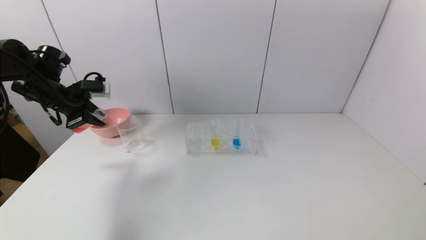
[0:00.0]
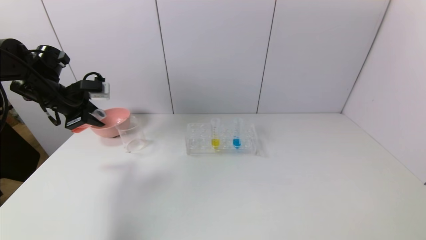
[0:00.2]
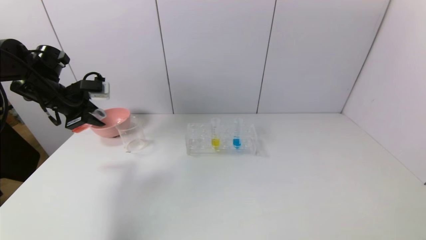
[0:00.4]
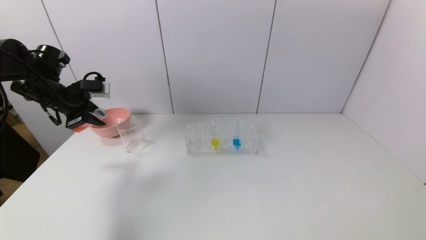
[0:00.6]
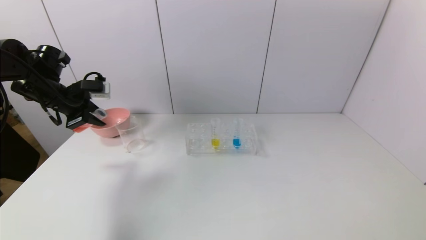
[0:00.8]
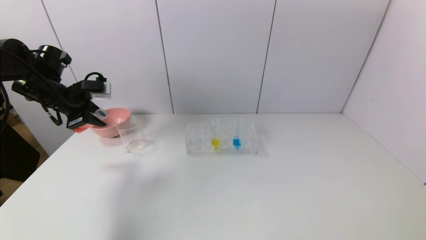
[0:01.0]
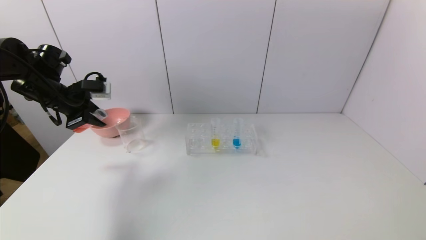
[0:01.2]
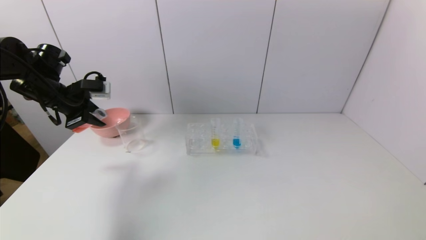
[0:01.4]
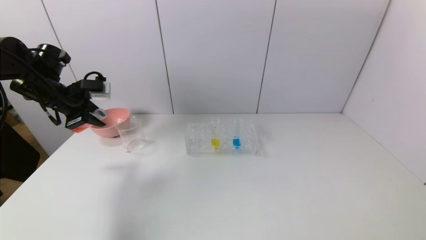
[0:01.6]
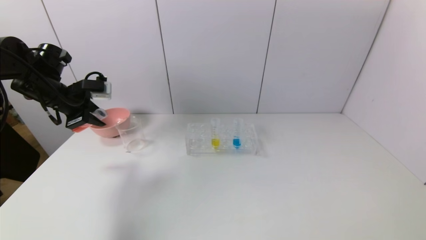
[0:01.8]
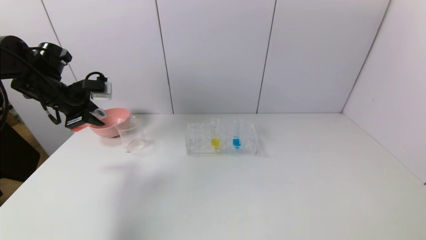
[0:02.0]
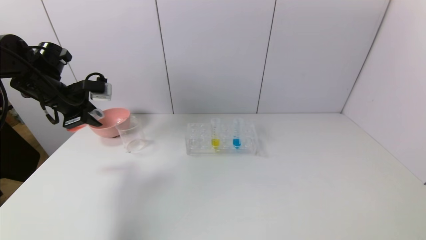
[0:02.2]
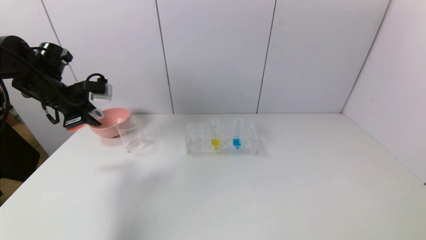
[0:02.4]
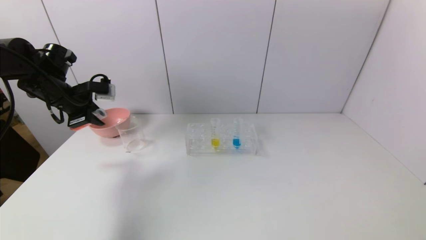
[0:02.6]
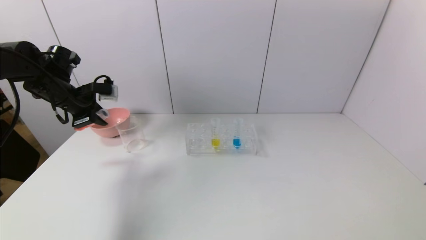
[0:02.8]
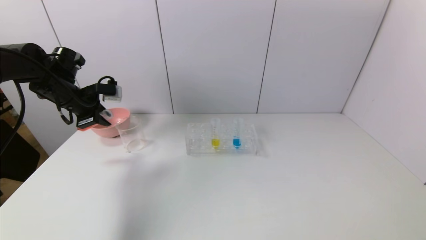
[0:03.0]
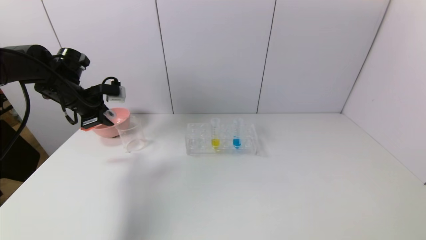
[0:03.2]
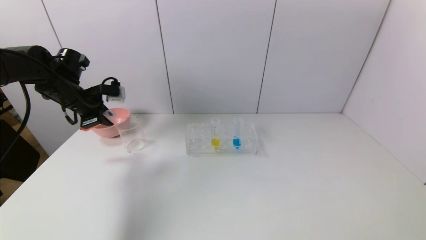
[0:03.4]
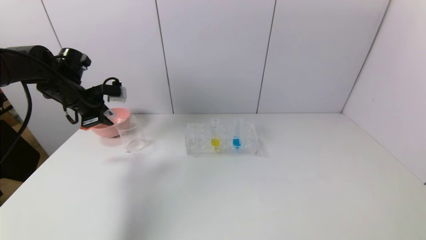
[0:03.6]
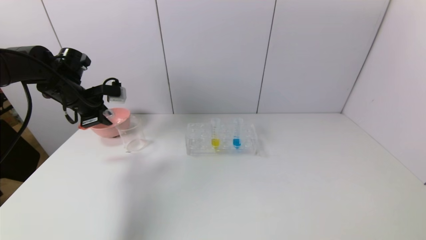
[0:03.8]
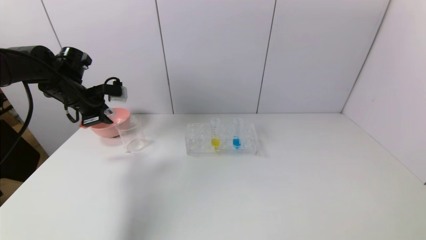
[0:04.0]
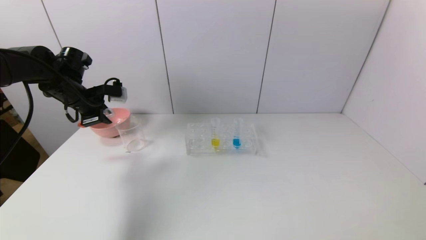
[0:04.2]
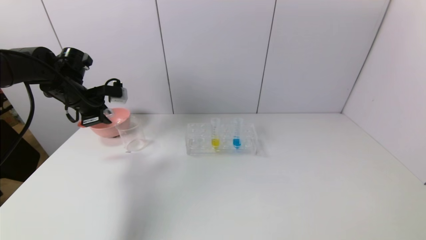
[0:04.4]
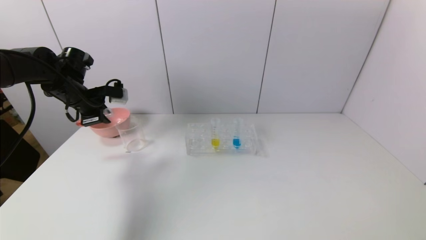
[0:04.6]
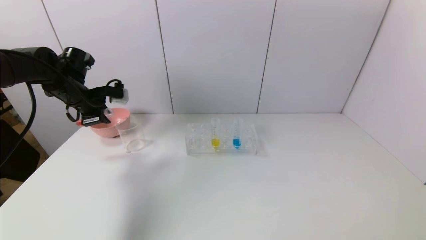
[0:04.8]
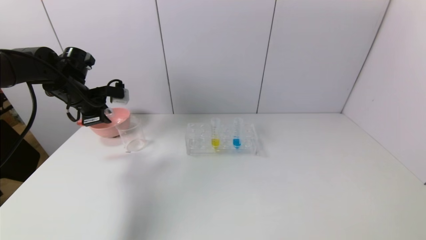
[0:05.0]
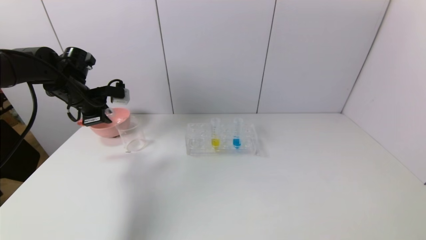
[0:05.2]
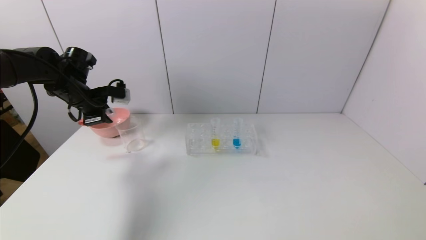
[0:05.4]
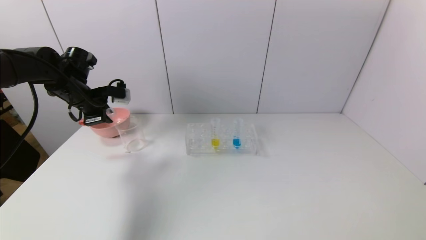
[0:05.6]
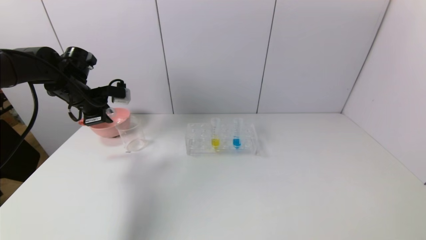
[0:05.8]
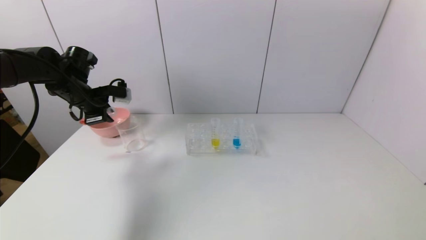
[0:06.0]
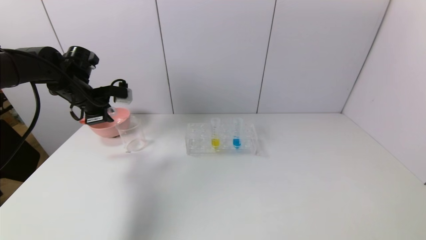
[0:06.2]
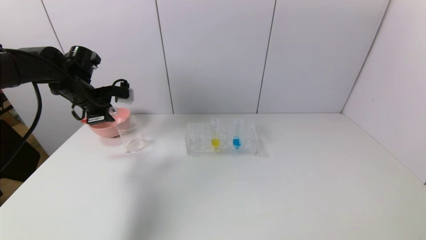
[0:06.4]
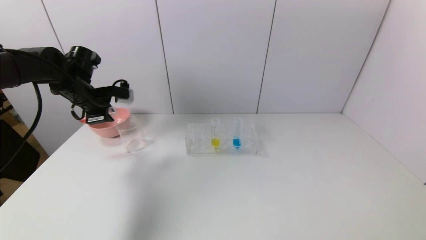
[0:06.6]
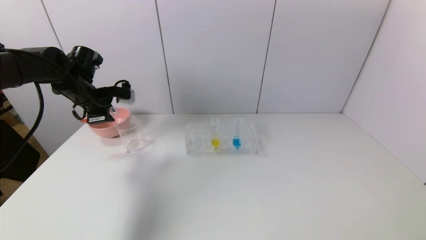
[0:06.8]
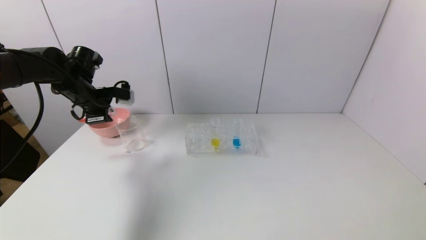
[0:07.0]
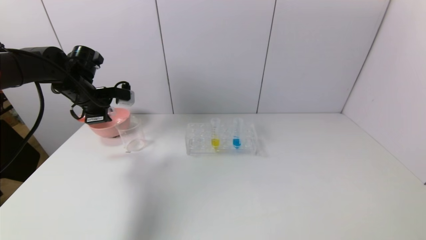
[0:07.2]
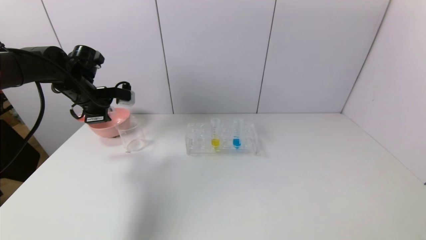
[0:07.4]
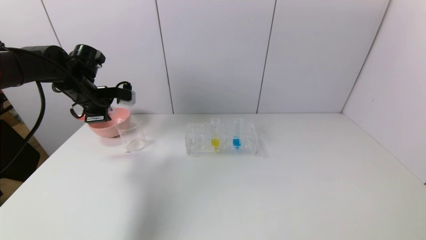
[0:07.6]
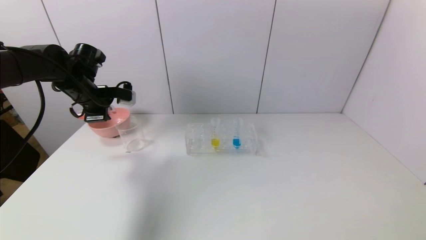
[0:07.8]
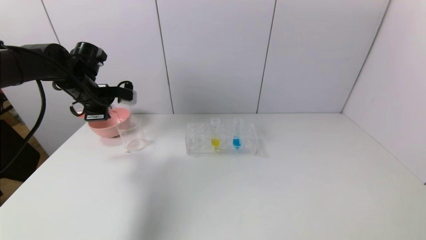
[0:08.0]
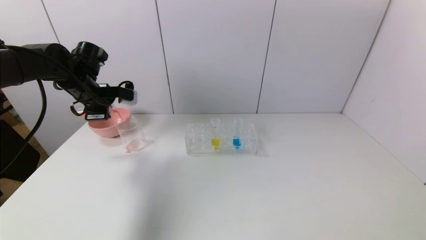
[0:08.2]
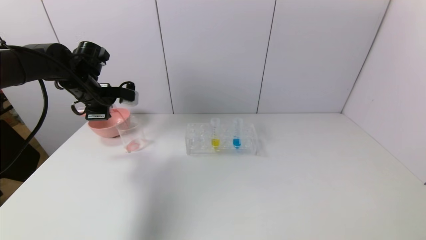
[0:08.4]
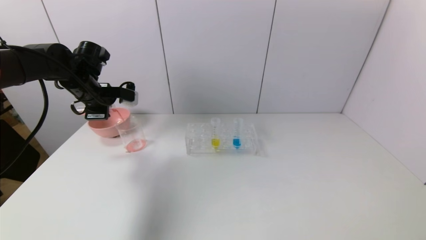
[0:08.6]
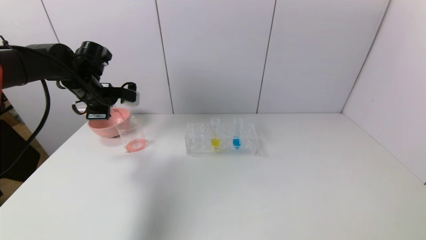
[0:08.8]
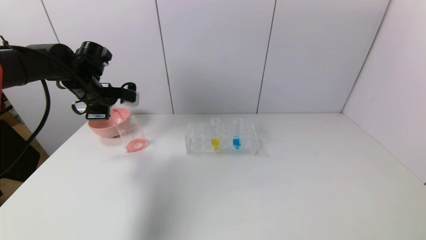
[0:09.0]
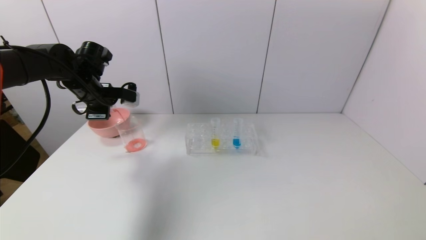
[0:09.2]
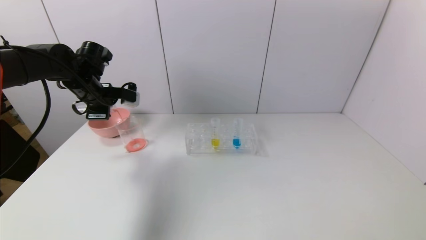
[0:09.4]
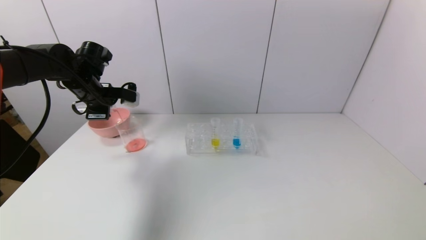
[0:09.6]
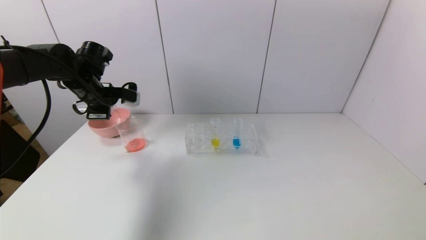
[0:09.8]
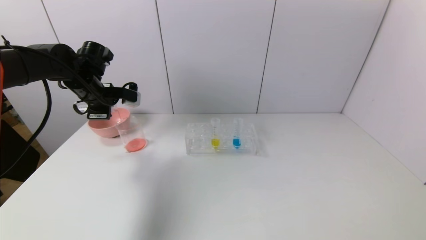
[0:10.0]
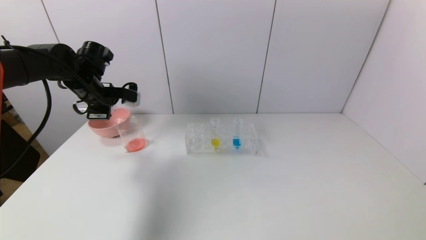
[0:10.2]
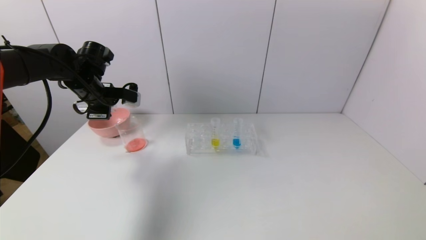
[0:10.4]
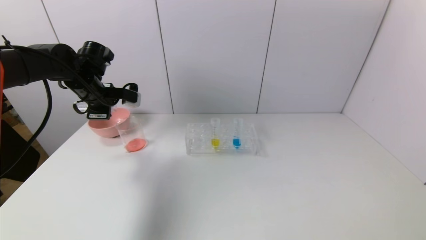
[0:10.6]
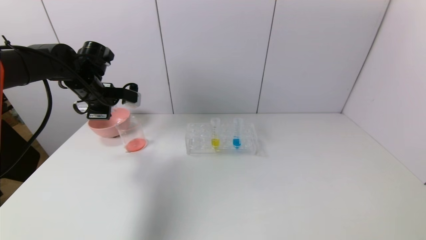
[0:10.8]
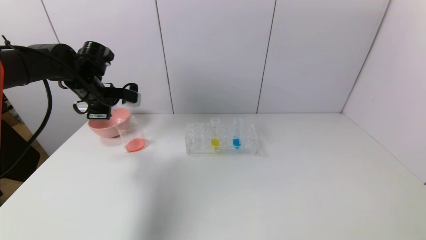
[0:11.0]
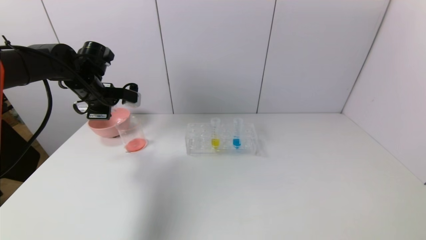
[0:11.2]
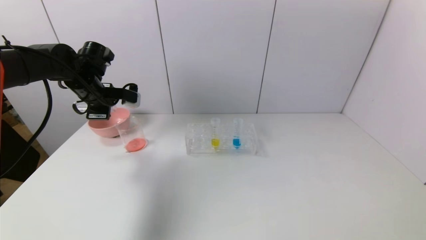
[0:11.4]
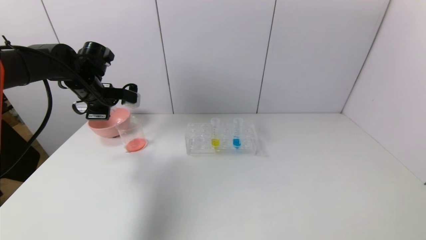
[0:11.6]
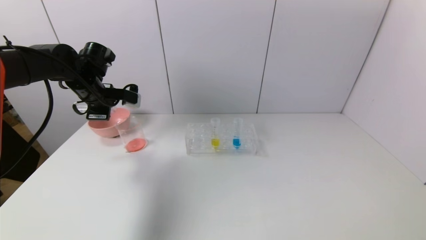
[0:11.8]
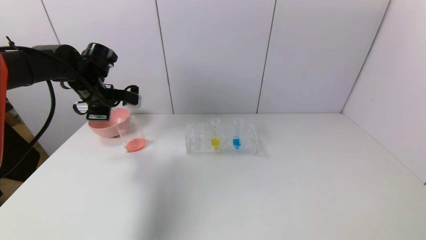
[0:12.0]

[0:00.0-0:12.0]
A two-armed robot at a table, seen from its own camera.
Task of the whole recording: pick up the test tube with red pigment and the test tube with blue pigment by grippers and pour them into the container.
0:00.0 to 0:01.6: Both grippers stay put.
0:01.6 to 0:04.4: There are only small adjustments of the grippers.
0:04.4 to 0:06.0: Both grippers stay about where they are.
0:06.0 to 0:09.0: The grippers stay close to where they were, moving slightly.
0:09.0 to 0:12.0: Both grippers stay put.

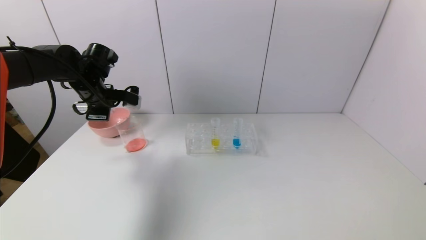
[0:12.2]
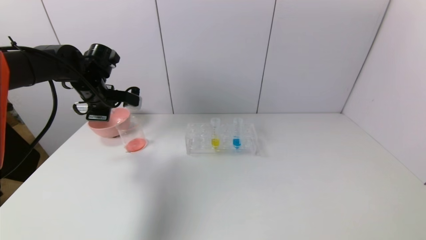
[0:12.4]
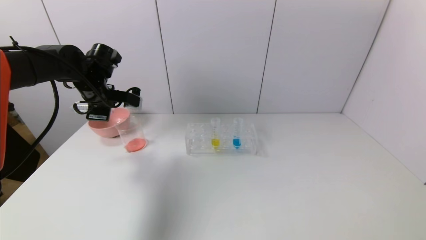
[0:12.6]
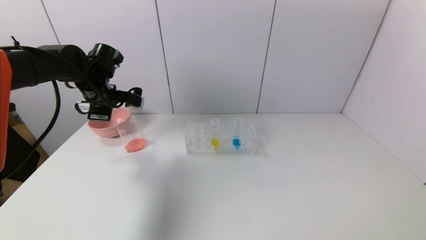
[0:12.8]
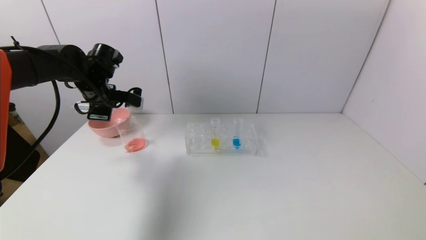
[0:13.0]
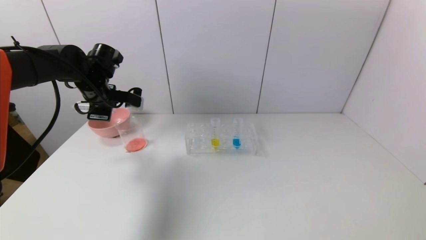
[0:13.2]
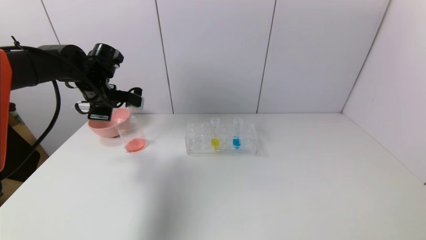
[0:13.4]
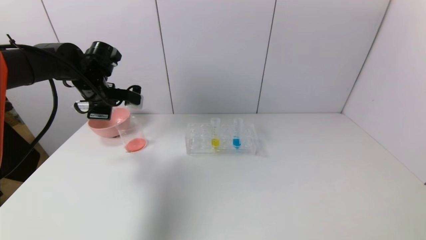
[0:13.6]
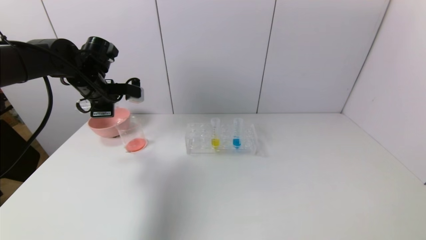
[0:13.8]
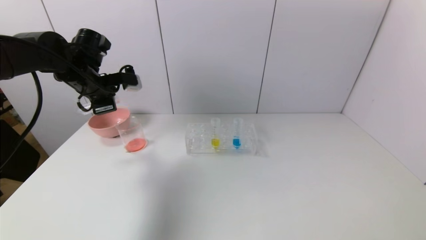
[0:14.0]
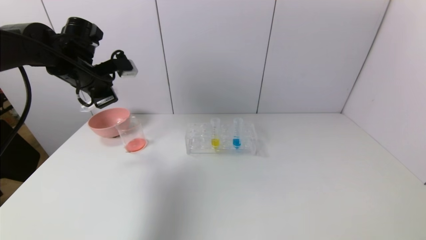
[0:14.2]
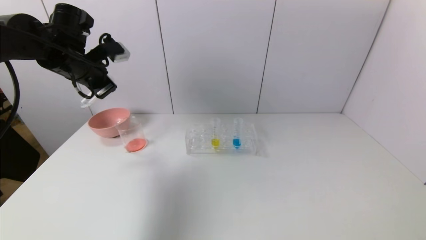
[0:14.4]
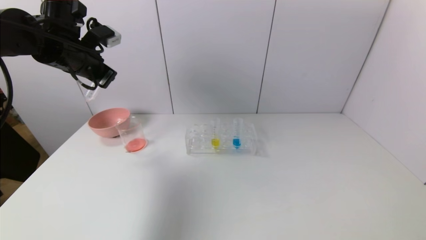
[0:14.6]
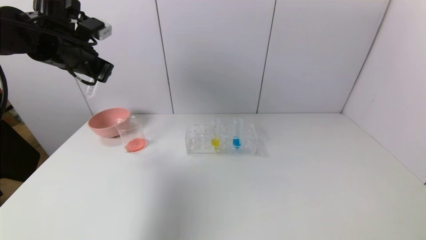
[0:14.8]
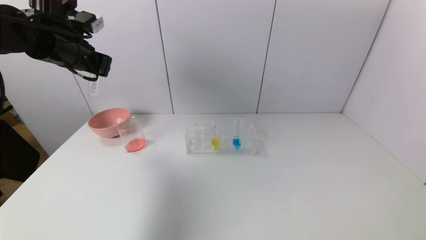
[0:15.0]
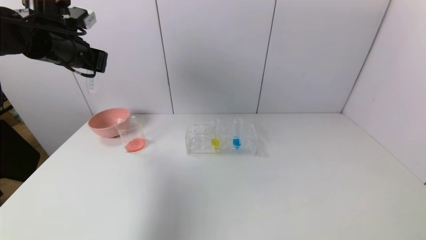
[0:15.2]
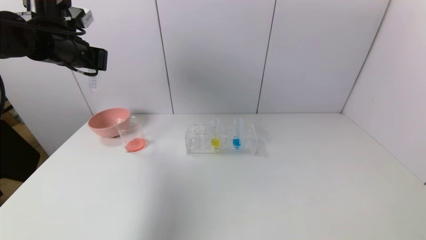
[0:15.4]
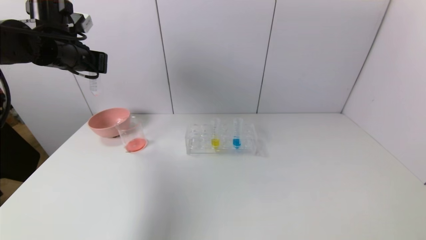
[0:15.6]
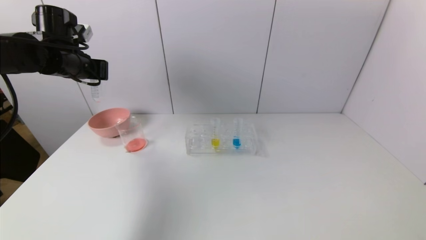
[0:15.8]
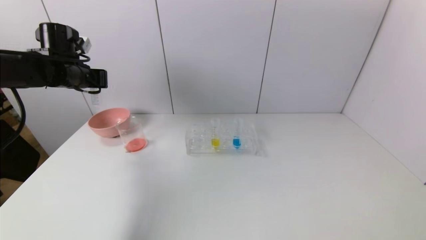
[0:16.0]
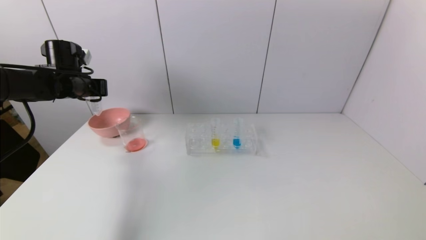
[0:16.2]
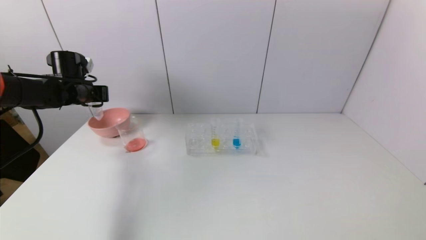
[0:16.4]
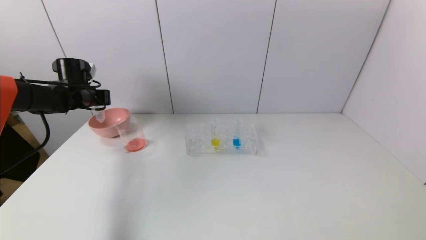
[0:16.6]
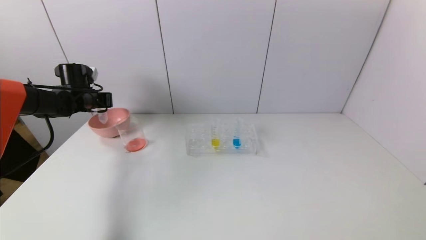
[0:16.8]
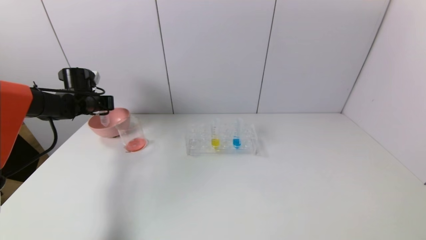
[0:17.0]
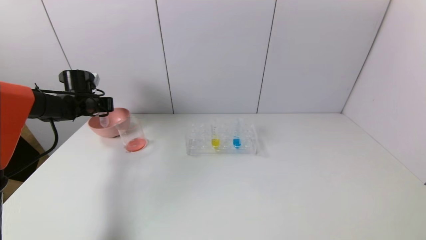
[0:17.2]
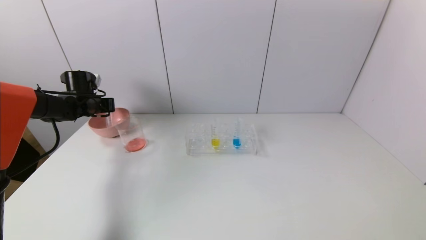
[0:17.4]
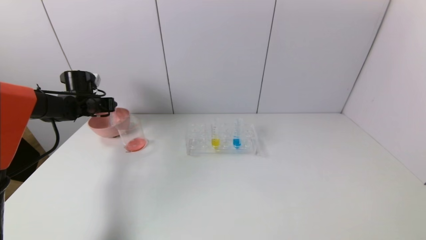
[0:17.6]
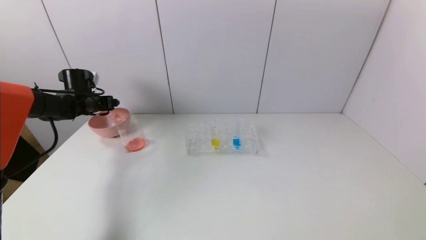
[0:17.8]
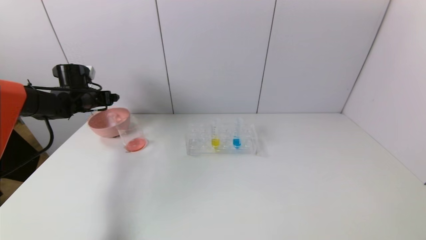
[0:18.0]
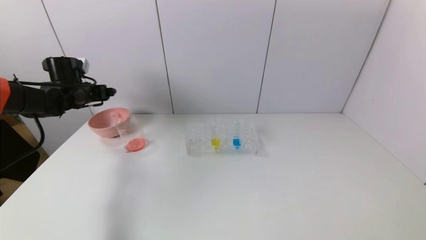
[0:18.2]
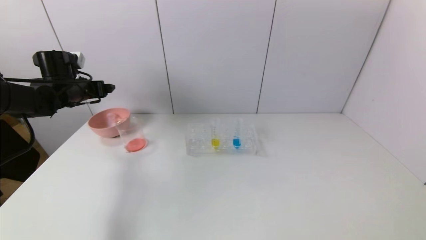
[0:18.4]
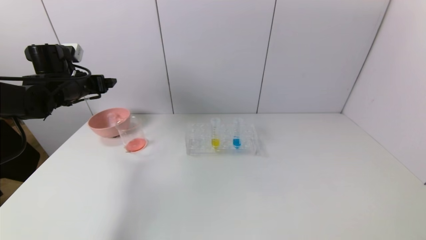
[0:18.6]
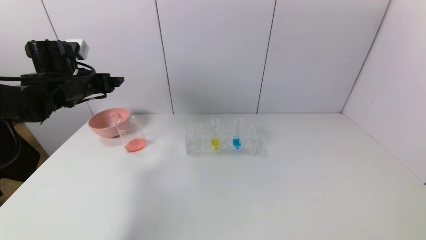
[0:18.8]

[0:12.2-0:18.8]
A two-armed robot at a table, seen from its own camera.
Task of the whole recording: pick up the test tube with red pigment and the test tube with blue pigment by grippers and pour them into the container.
Step, 0:13.4 to 0:18.4: Place the test tube into the bowl with the left gripper.
0:12.2 to 0:13.8: There are only small adjustments of the grippers.
0:13.8 to 0:15.4: The left gripper moves upward, some 10 cm.
0:15.4 to 0:17.2: The left gripper is displaced downward, forward and to the left by roughly 20 cm.
0:17.2 to 0:18.8: The left gripper travels backward, upward and to the right by approximately 15 cm, and opens.
